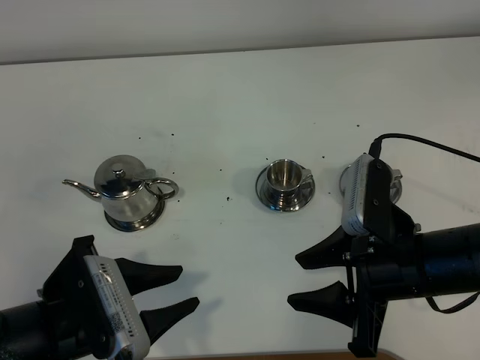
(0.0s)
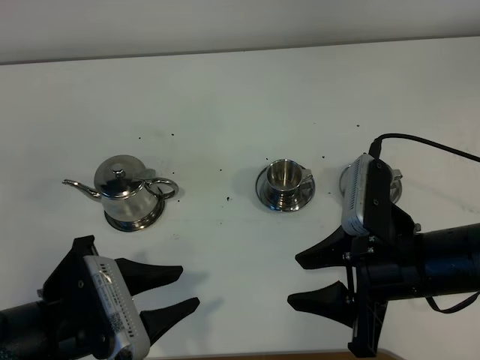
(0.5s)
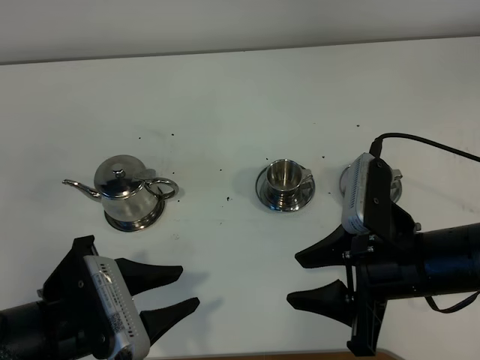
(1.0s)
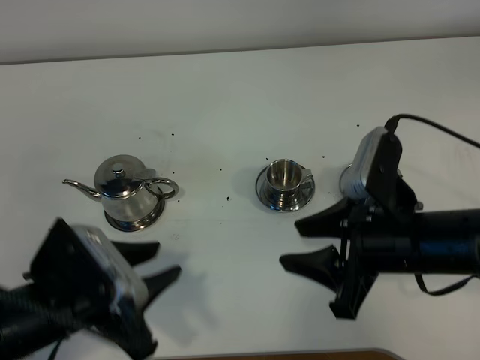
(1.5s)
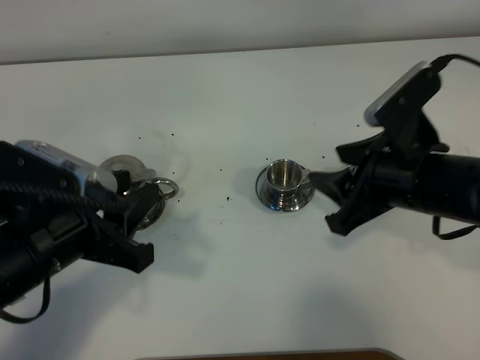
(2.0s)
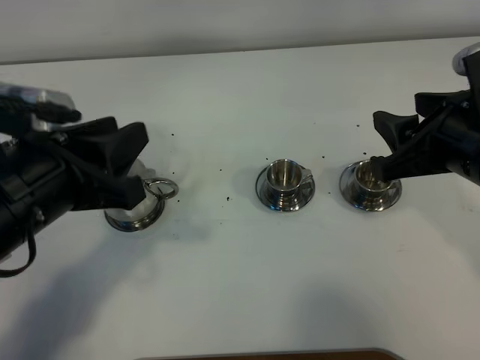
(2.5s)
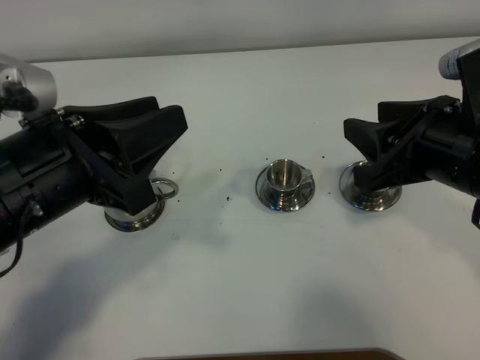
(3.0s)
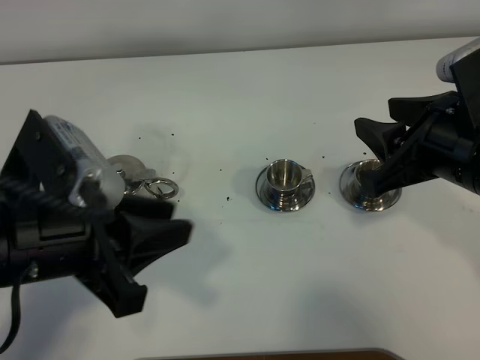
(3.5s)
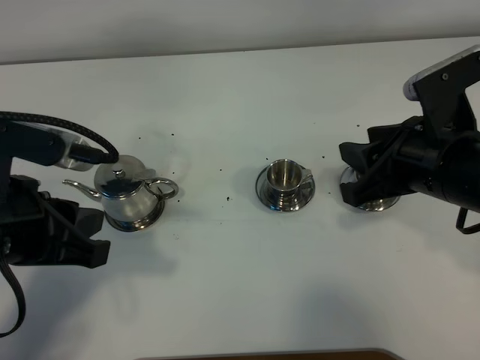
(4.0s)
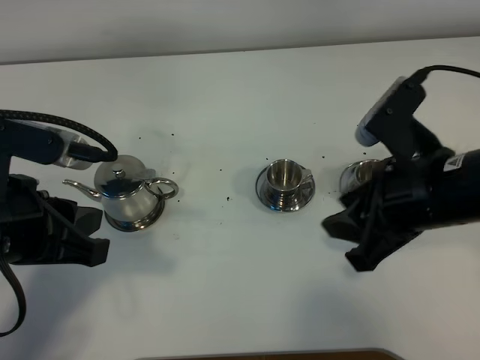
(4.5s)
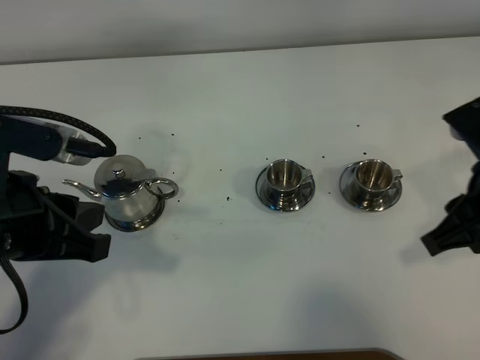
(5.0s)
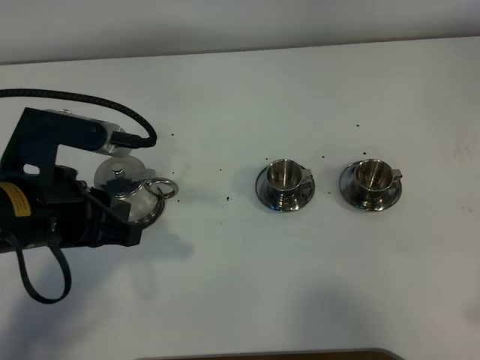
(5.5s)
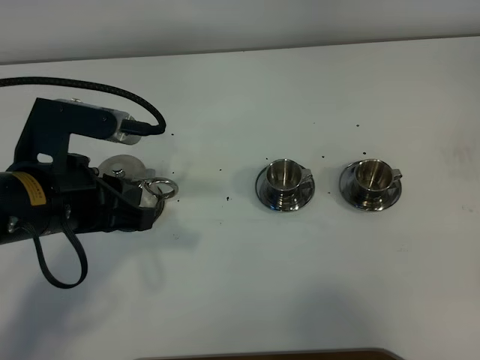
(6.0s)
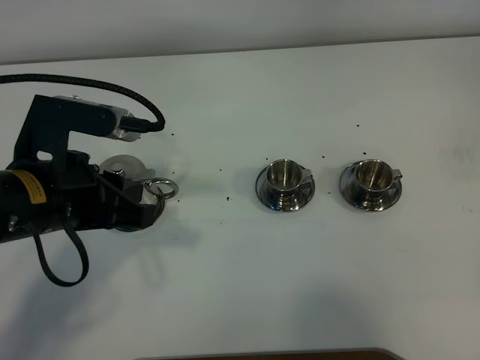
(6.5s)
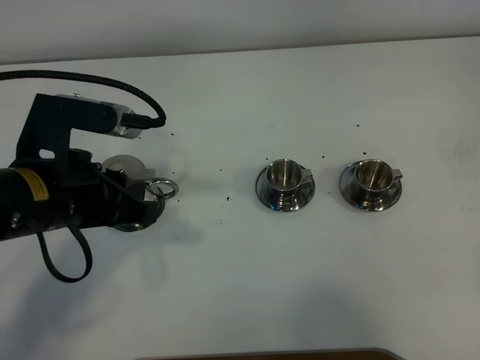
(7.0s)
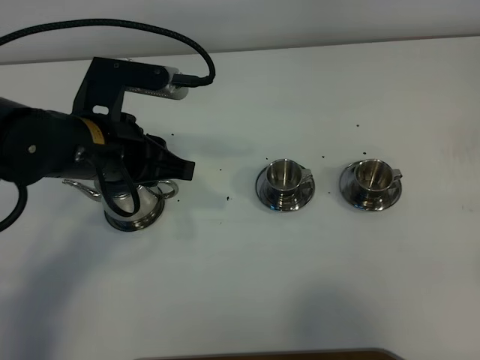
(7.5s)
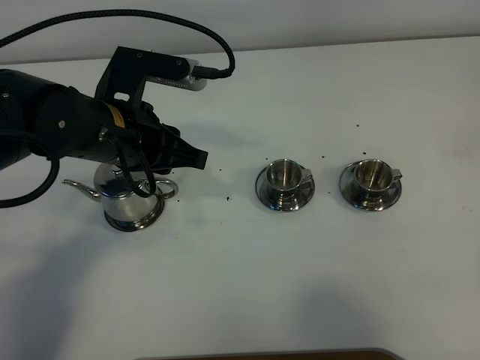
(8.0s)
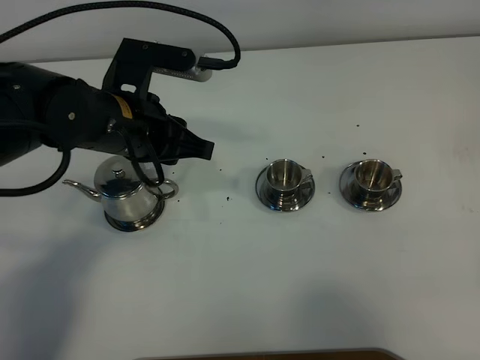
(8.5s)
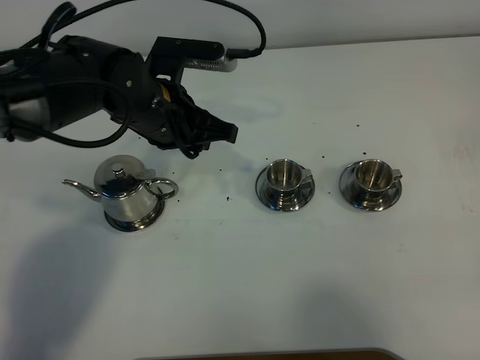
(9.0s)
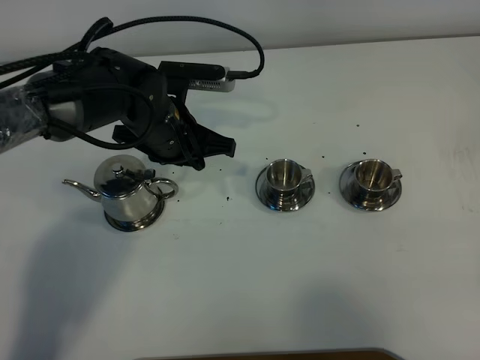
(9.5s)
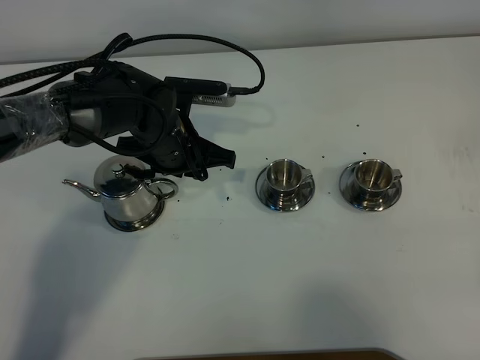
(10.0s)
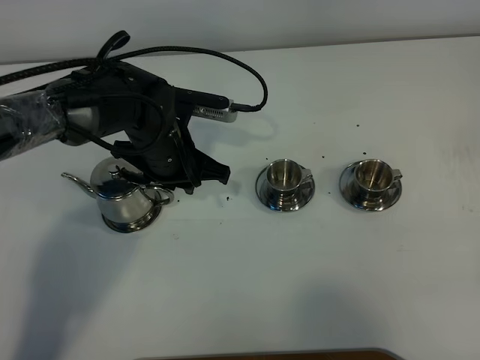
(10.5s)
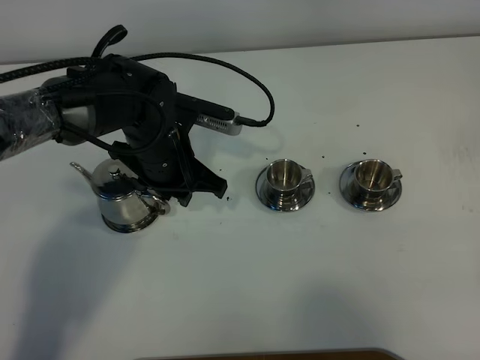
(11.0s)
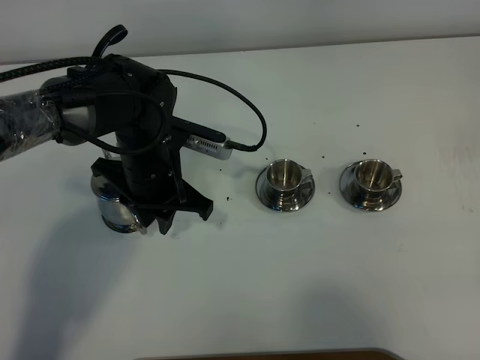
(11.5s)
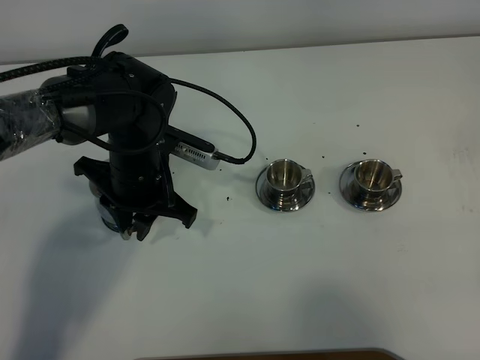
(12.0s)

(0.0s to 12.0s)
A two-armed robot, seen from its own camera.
Task of the whole recording: grasp the stainless steel teapot and pour the tea into the two stainless steel teacups one by one, put the stainless steel teapot back in its original place.
0.0s - 2.0s: The left gripper is displaced upward by some 5 cm. Meanwhile the right gripper goes roughly 5 cm forward.
2.0s - 4.0s: The right gripper closes up.
4.0s - 6.0s: The left gripper changes place by approximately 5 cm, while the right gripper shifts approximately 20 cm backward and to the right.
6.0s - 8.0s: The left gripper goes approximately 10 cm forward, while the right gripper is displaced backward by approximately 5 cm.
8.0s - 10.0s: The left gripper heads downward and forward, covering about 10 cm.
10.0s - 12.0s: The left gripper moves some 5 cm.

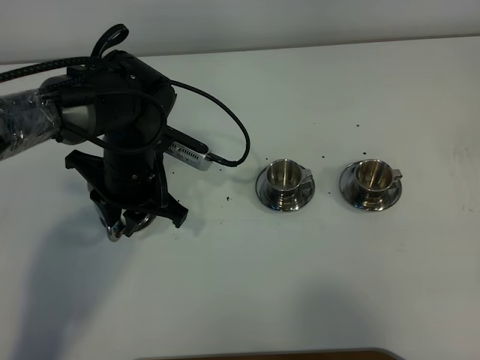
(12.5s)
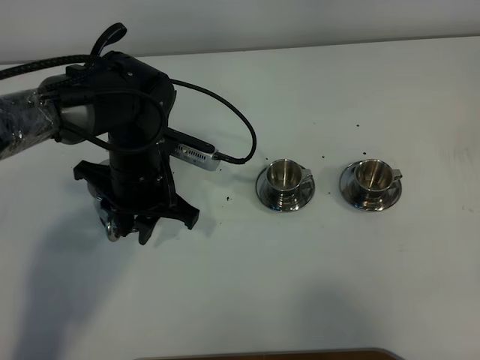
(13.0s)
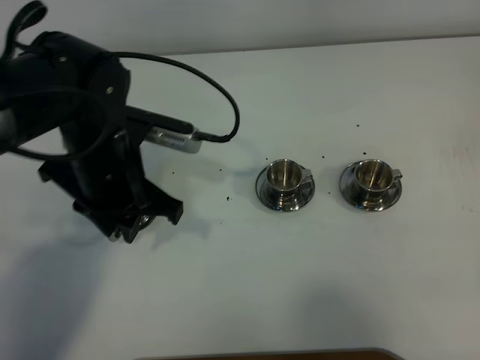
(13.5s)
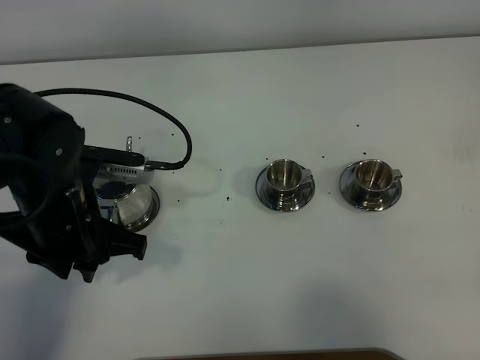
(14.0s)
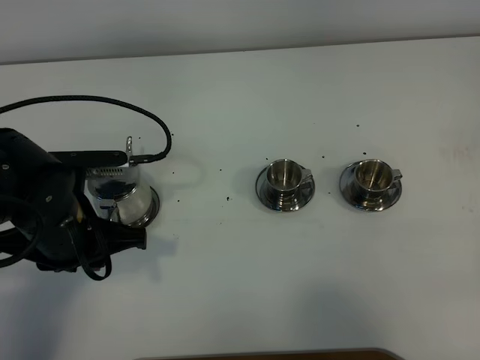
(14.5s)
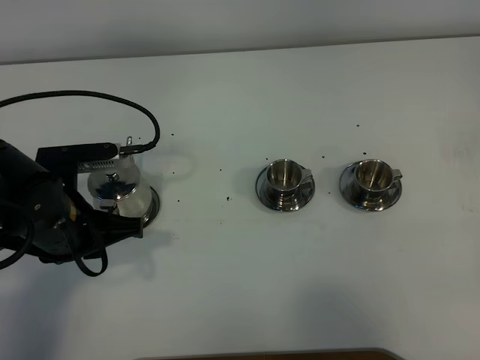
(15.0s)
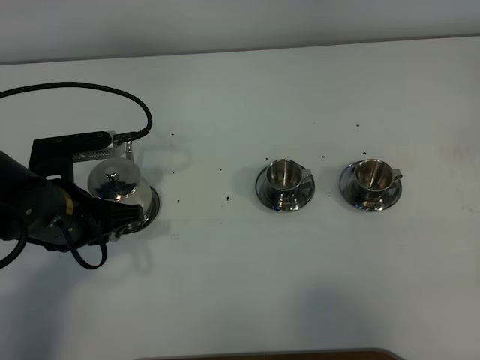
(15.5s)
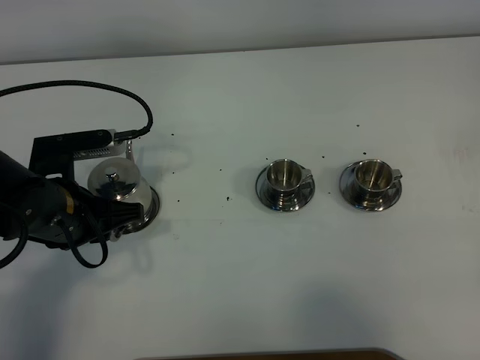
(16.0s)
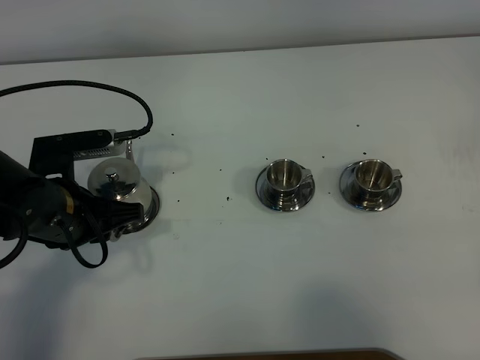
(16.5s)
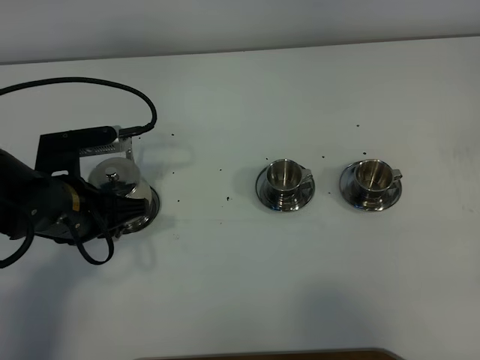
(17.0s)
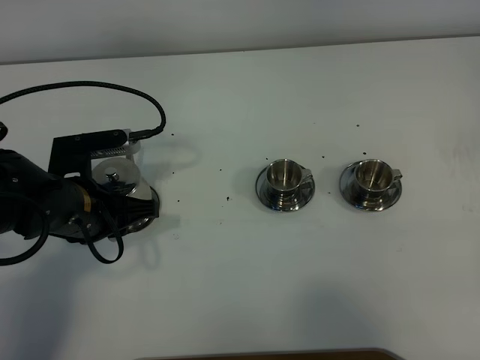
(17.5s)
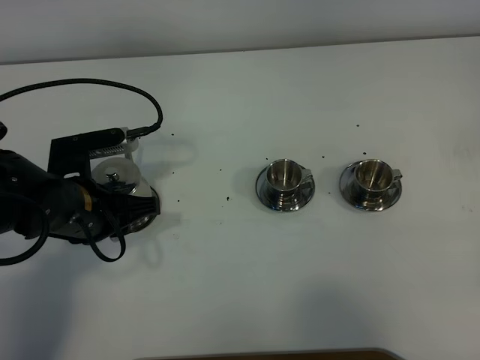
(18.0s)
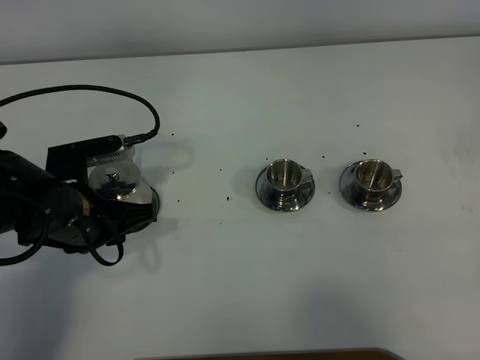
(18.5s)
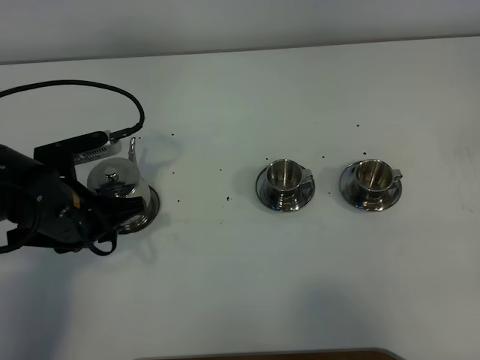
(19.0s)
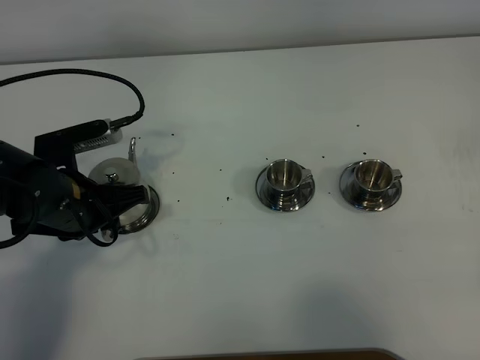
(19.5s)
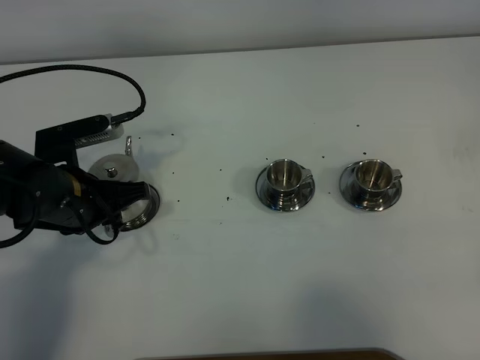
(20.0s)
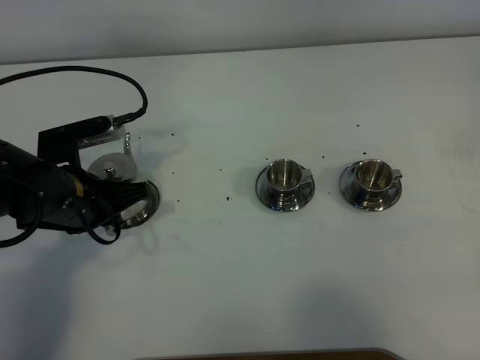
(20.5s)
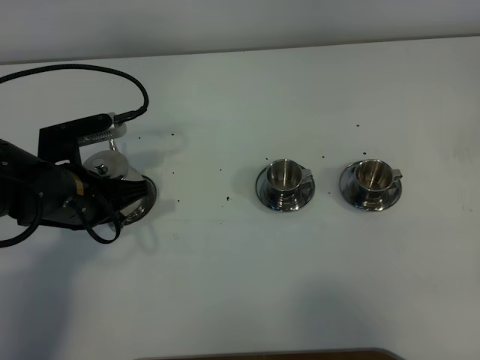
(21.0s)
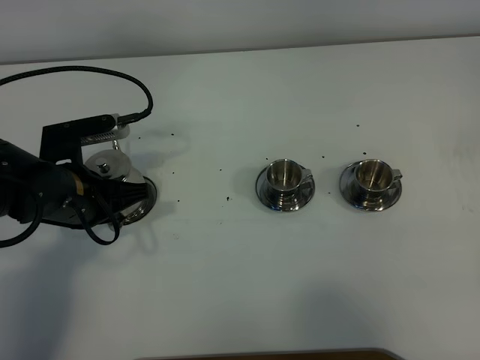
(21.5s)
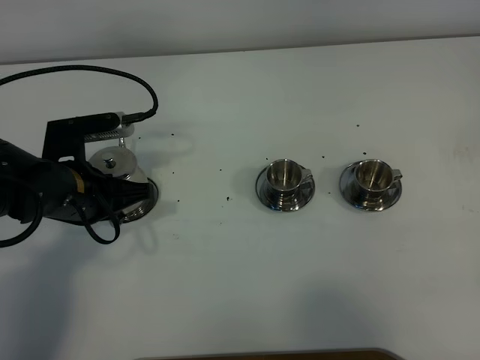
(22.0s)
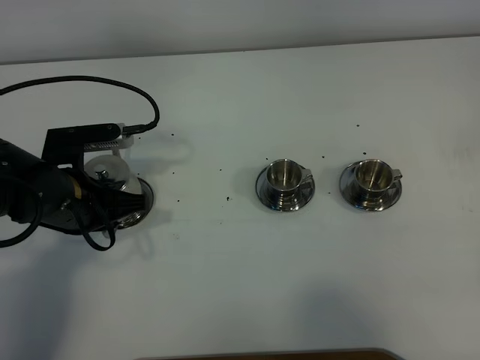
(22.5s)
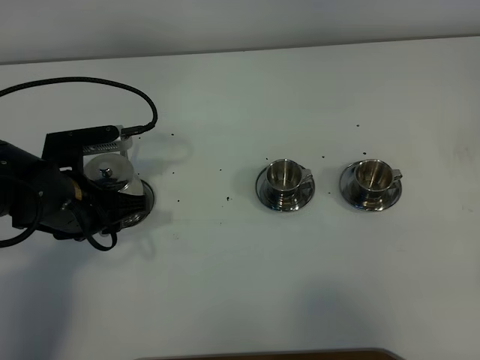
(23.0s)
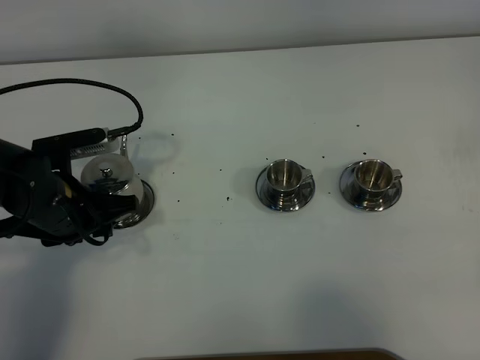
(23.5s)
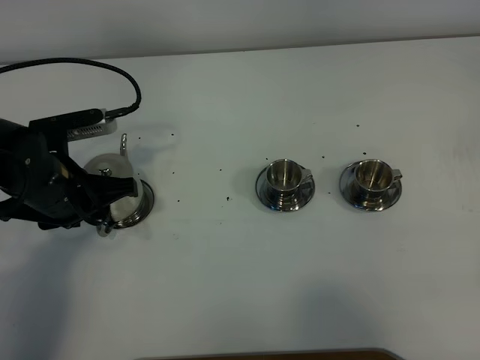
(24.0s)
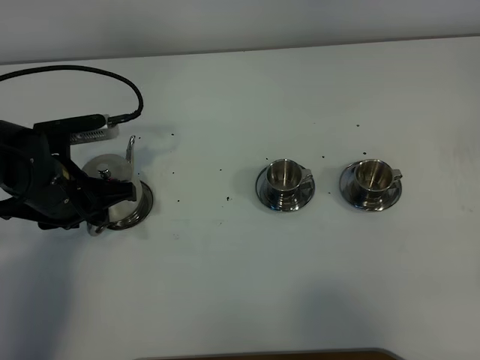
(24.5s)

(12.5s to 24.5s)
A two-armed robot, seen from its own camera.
Task of the whole recording: grasp the stainless steel teapot and pour the tea into the two stainless steel teacups one by one, put the stainless steel teapot back in its original place.
12.5s - 14.5s: The left gripper moves backward and to the left, approximately 10 cm.
14.5s - 18.5s: The grippers make only small movements.
18.5s - 20.5s: The left gripper closes its fingers.
20.5s - 22.5s: The grippers make only small movements.
22.5s - 24.5s: The left gripper opens its fingers.

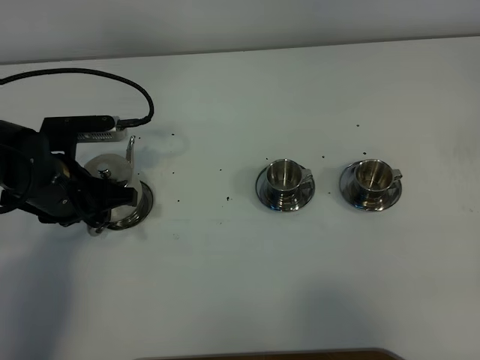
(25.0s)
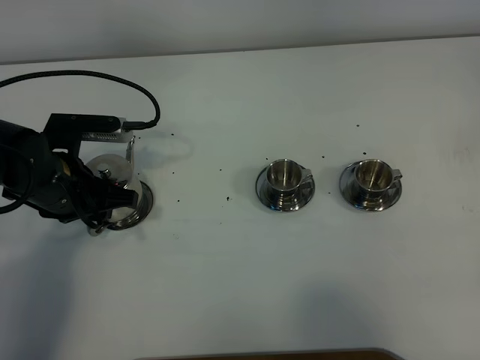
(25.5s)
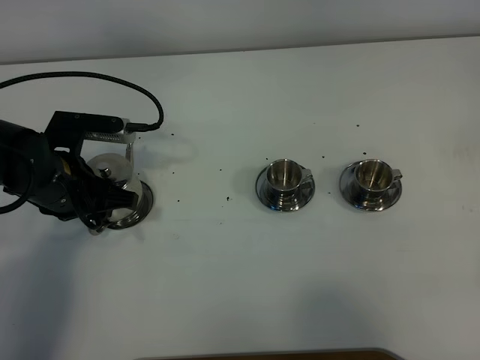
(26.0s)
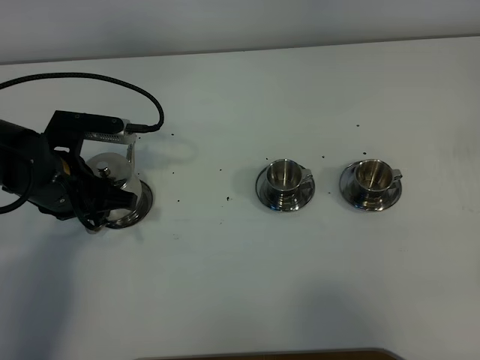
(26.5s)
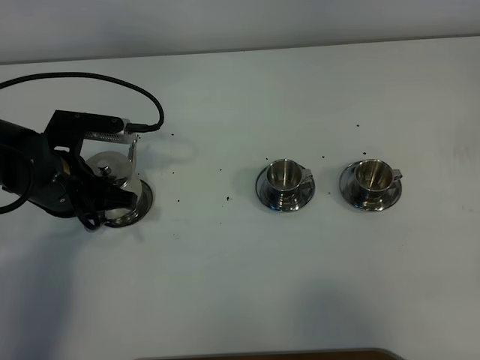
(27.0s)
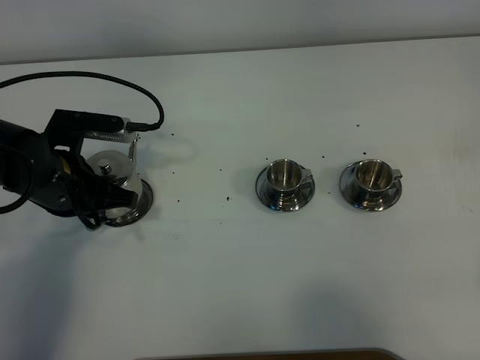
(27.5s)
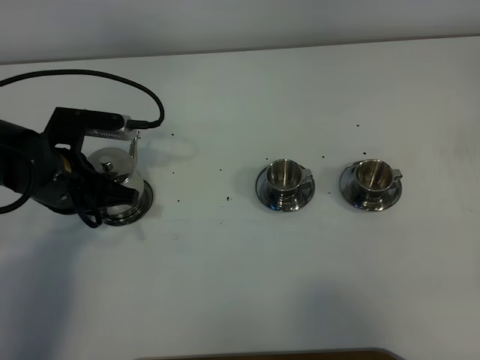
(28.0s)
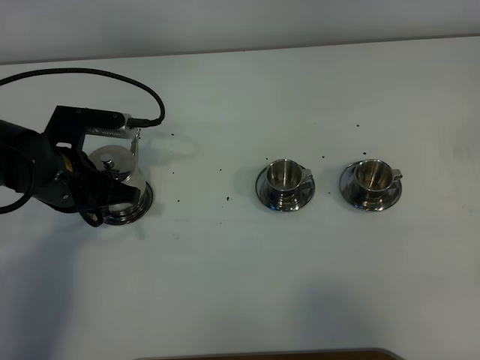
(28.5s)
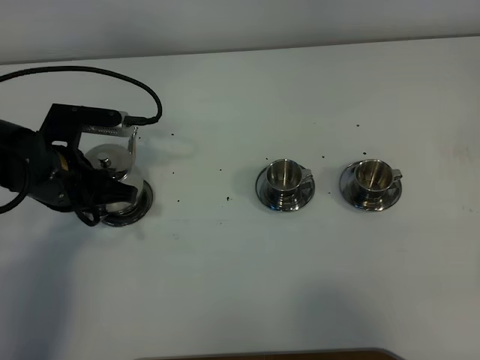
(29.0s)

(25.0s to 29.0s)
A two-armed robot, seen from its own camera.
Task of the whole recording: grasp the stainless steel teapot and pour the tea into the two stainless steel teacups one by one, put the stainless steel teapot back in its original place.
25.0s - 27.0s: The left gripper closes.
27.0s - 29.0s: Both grippers stay put.
